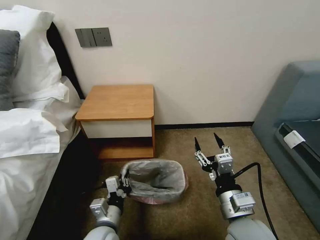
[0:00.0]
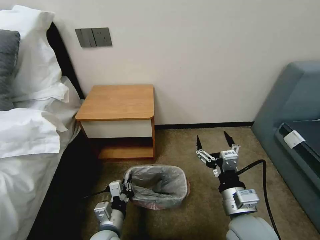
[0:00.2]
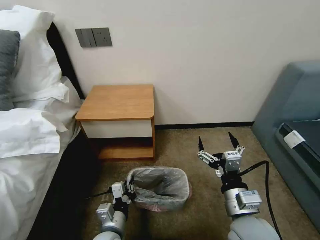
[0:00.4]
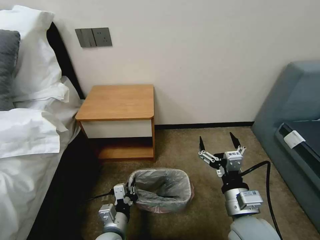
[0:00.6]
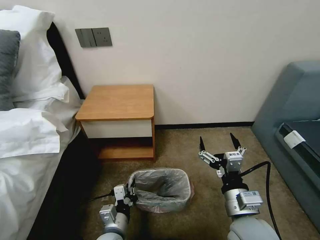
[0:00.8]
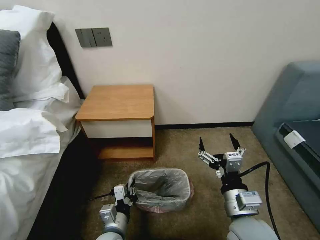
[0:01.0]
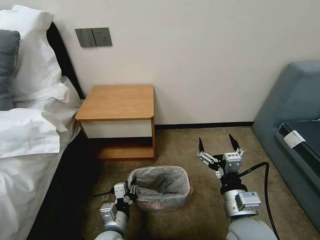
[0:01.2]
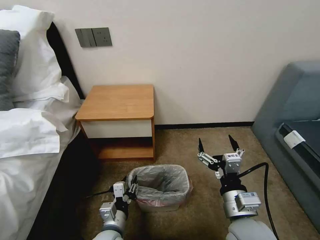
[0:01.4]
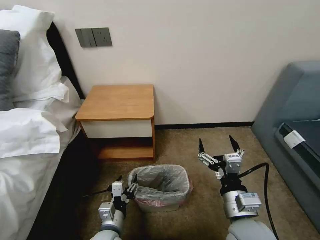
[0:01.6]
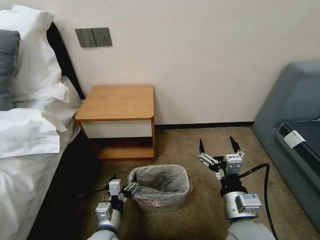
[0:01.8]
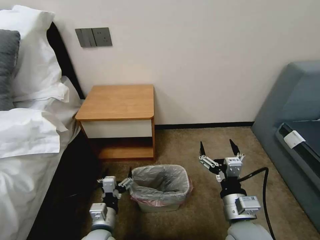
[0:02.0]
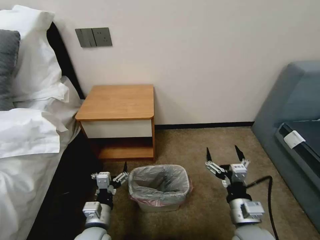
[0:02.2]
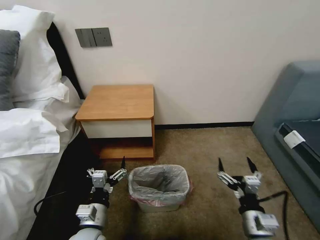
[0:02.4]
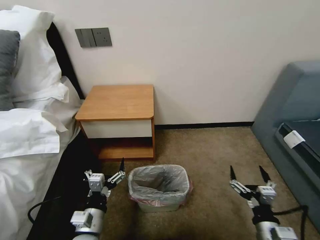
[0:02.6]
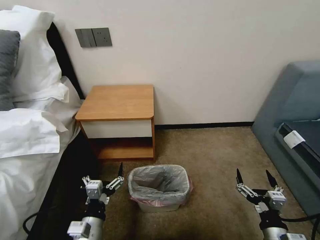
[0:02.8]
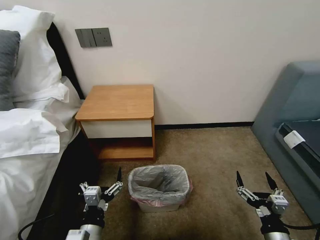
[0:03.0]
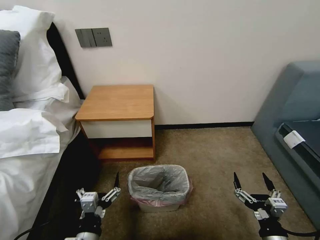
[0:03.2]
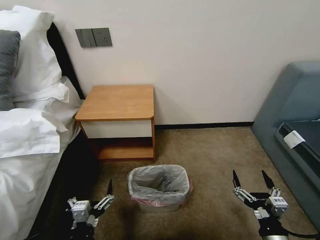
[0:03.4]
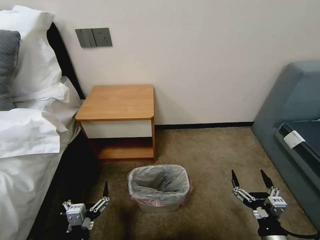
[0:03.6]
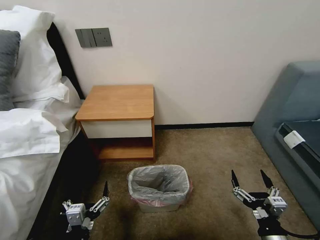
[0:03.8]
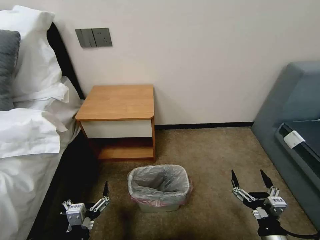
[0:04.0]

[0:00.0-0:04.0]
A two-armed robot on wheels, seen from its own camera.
Task of the whole recording: Pick up the garbage bag from the table and place it over the trash can.
0:00.0 to 0:01.4: The left gripper opens up.
0:01.4 to 0:02.6: The right gripper heads to the right, downward and backward, covering approximately 15 cm. The left gripper shifts some 5 cm to the left, and opens.
0:02.6 to 0:04.0: The left gripper shifts about 10 cm backward.

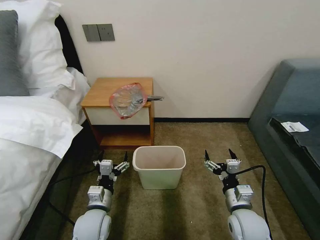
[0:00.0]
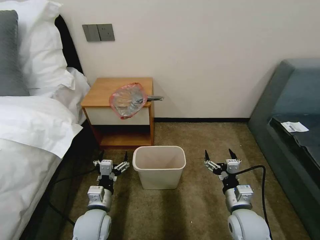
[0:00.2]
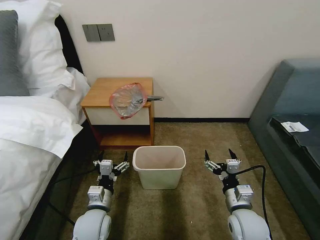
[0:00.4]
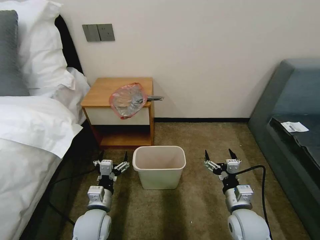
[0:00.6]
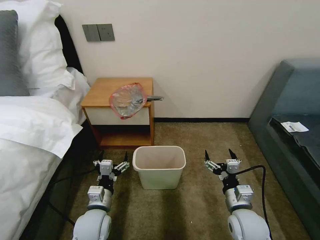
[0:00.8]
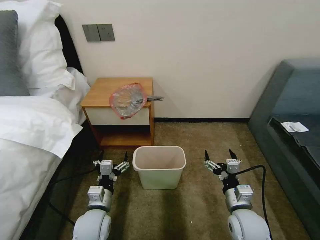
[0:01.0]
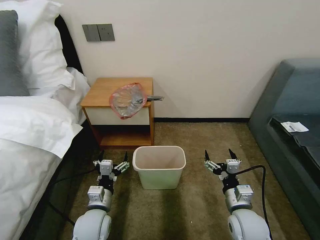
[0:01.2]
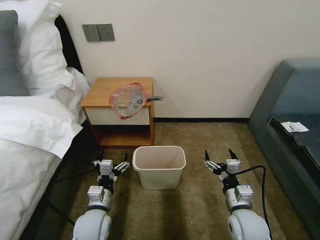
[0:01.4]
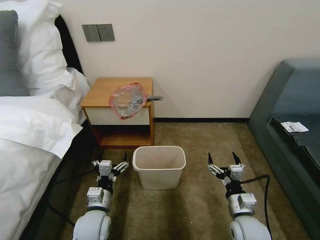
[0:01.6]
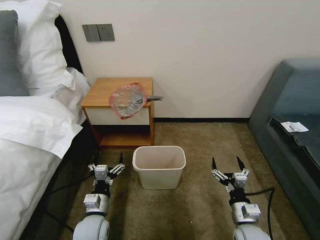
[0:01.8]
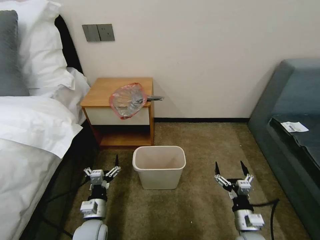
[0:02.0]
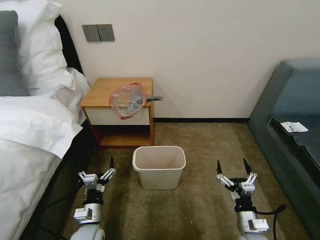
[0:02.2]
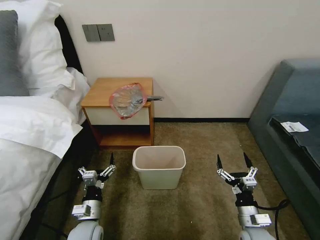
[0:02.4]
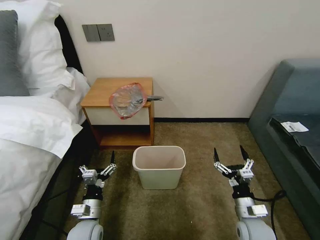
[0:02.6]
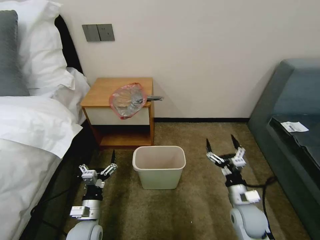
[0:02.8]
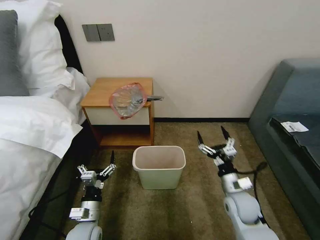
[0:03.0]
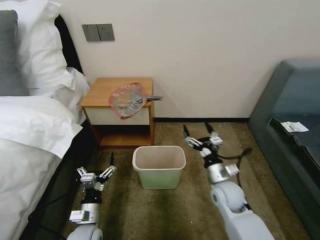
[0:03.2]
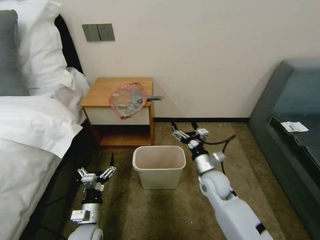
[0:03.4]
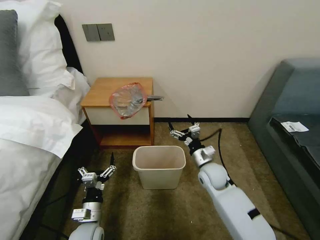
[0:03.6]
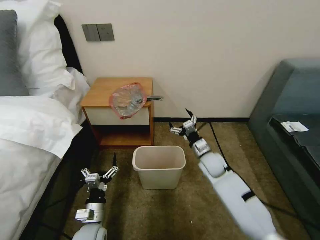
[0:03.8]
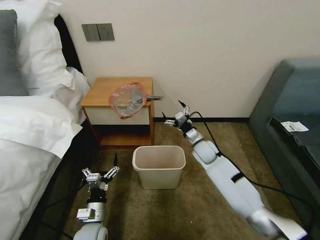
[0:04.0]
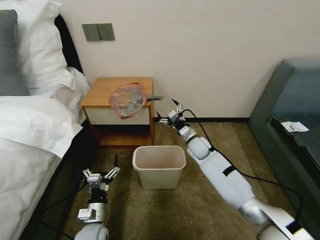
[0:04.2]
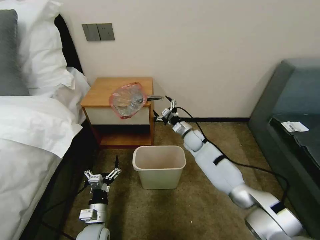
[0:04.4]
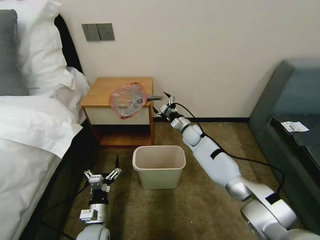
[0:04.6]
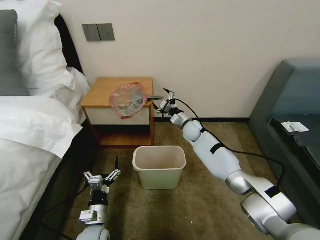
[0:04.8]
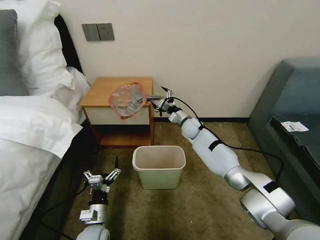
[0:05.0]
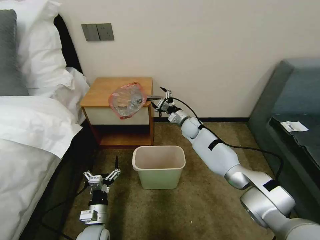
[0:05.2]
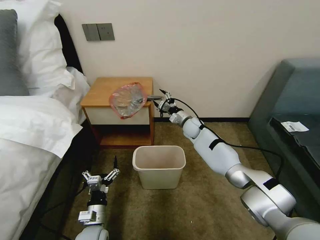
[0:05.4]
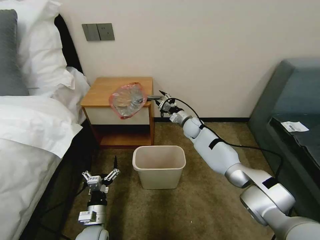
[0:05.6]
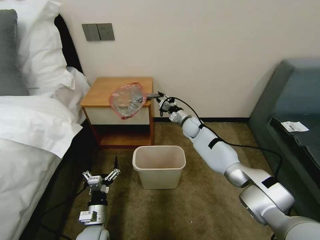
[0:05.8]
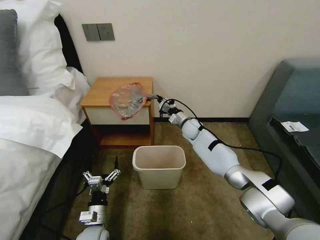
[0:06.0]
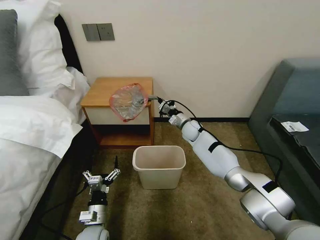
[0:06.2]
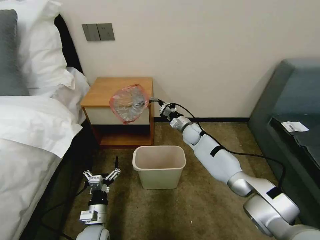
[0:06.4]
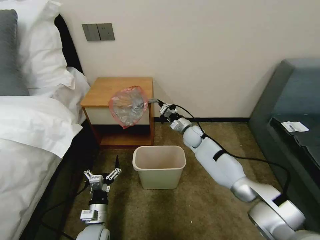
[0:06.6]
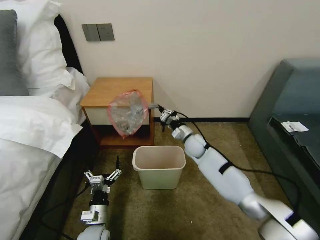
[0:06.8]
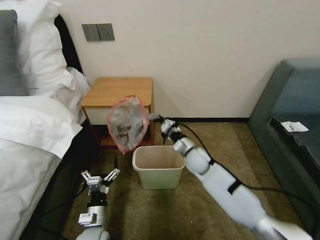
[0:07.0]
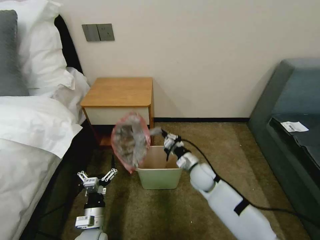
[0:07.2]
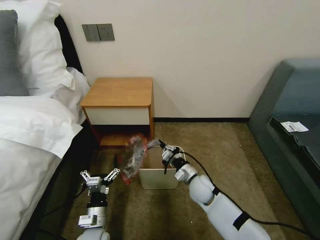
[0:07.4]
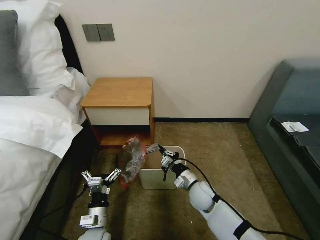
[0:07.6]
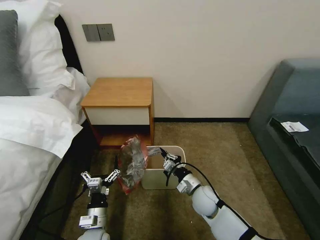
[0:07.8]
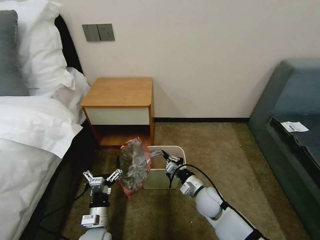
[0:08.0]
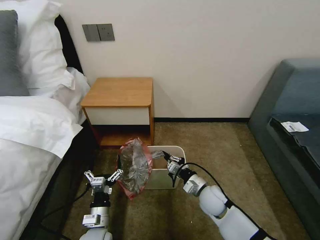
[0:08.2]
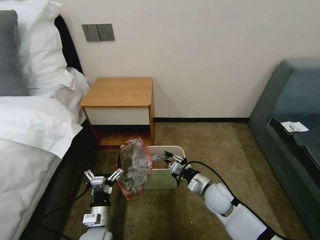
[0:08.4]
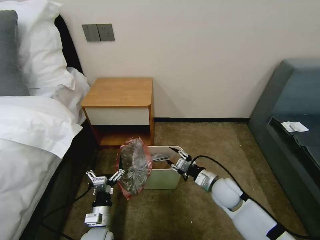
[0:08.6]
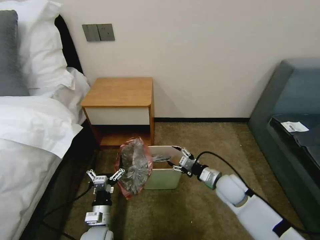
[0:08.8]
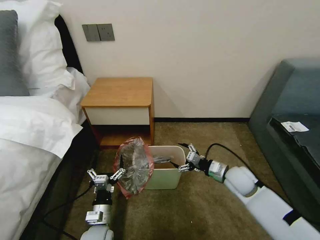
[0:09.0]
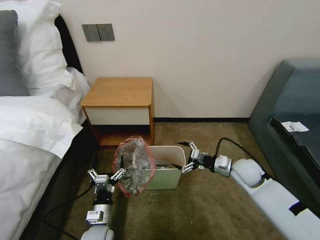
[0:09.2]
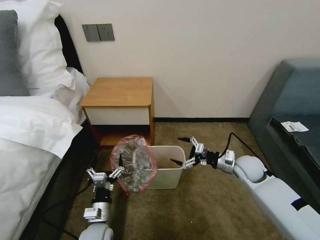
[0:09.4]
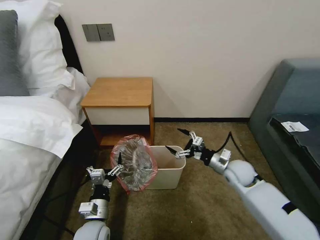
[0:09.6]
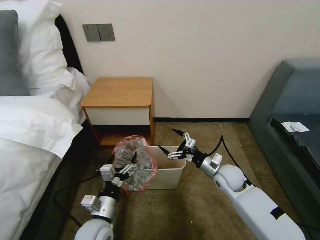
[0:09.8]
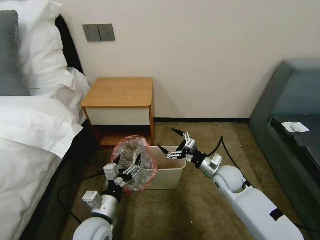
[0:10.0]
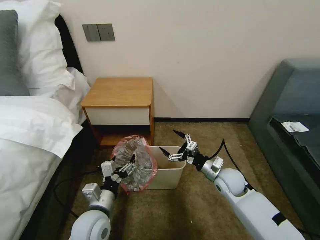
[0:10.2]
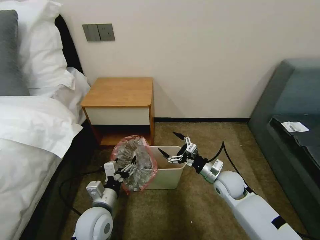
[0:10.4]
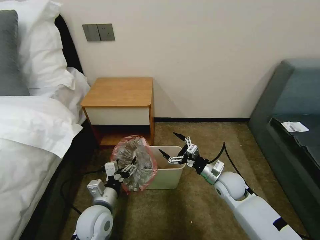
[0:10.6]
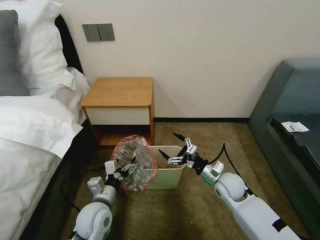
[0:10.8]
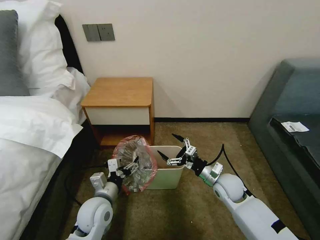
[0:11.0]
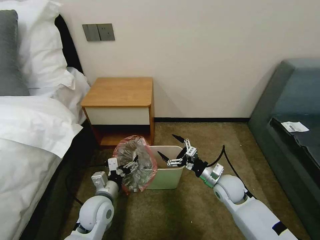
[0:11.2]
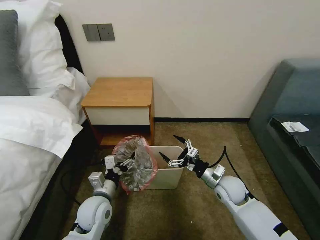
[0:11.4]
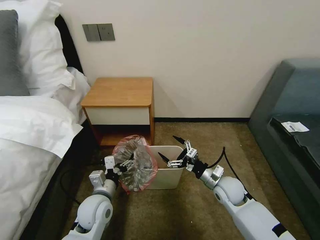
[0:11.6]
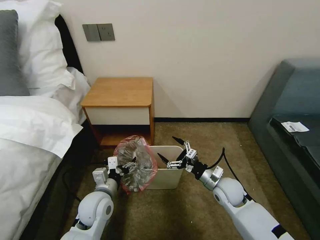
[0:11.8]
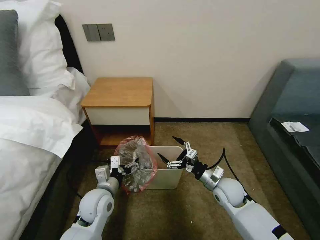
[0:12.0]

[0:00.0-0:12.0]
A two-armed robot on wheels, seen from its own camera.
Task of the whole recording: Pick up the garbage bag from the table and place it over the trash can.
0:01.6 to 0:03.0: The right gripper moves forward, approximately 5 cm. The left gripper moves approximately 5 cm.
0:03.0 to 0:04.4: The right gripper travels forward and to the left by approximately 30 cm.
0:04.4 to 0:06.0: The right gripper shifts by some 5 cm, and closes up.
0:06.0 to 0:07.6: The right gripper goes approximately 25 cm backward.
0:07.6 to 0:09.0: The right gripper moves to the right and upward, about 15 cm, and opens its fingers.
0:09.0 to 0:10.4: The left gripper is displaced upward by roughly 10 cm.
0:10.4 to 0:12.0: The left gripper heads forward, covering about 5 cm.

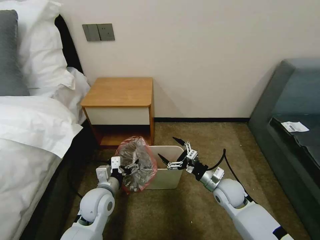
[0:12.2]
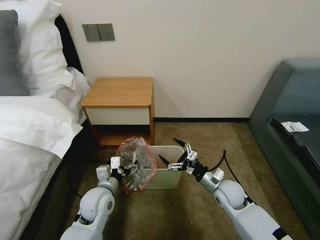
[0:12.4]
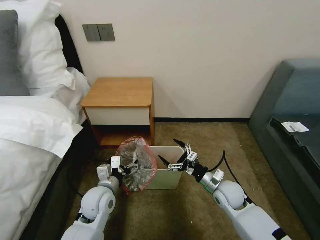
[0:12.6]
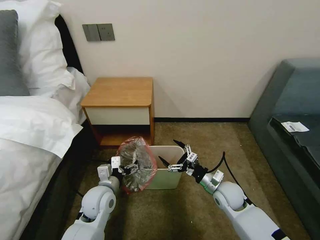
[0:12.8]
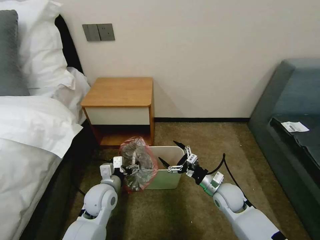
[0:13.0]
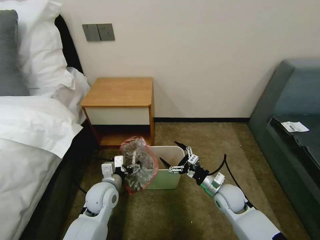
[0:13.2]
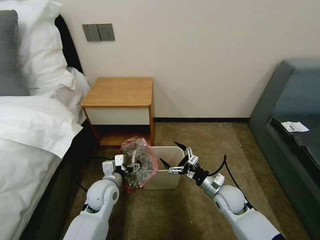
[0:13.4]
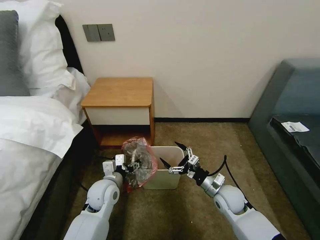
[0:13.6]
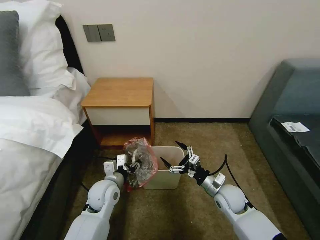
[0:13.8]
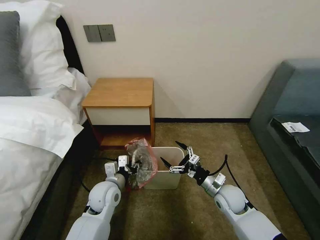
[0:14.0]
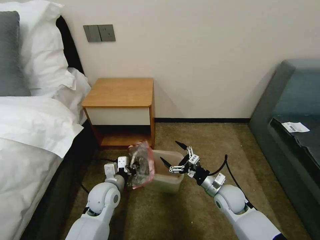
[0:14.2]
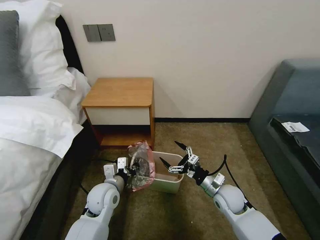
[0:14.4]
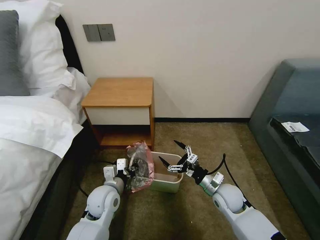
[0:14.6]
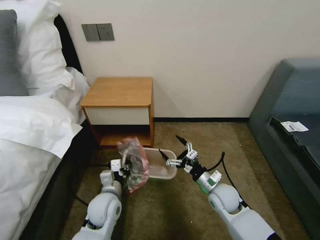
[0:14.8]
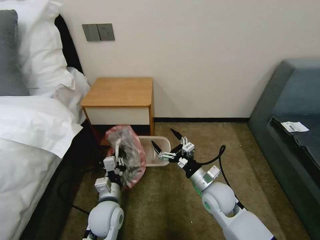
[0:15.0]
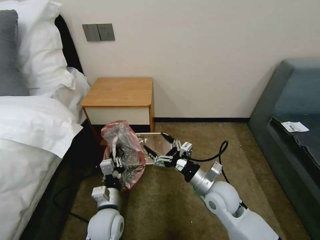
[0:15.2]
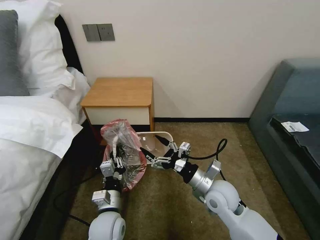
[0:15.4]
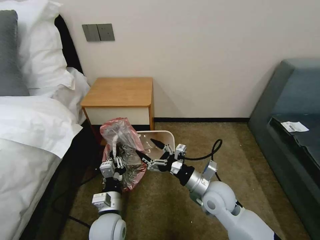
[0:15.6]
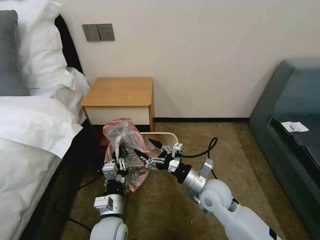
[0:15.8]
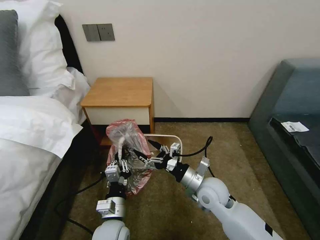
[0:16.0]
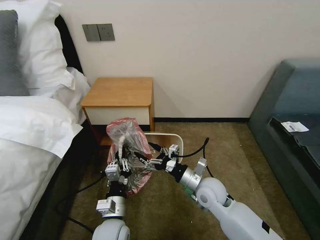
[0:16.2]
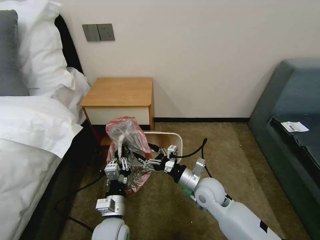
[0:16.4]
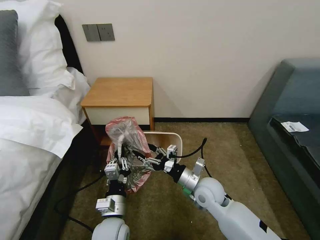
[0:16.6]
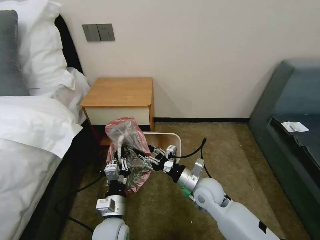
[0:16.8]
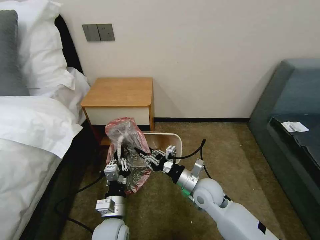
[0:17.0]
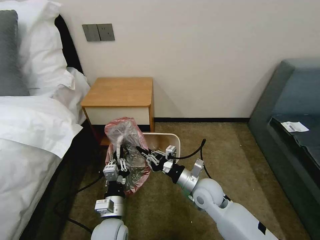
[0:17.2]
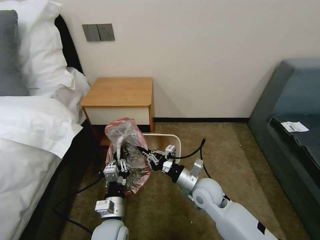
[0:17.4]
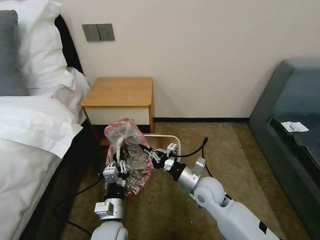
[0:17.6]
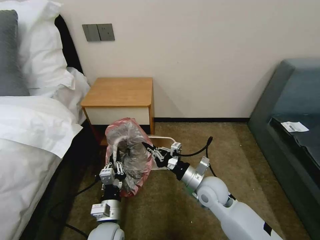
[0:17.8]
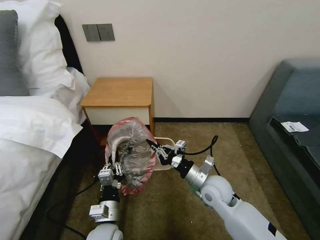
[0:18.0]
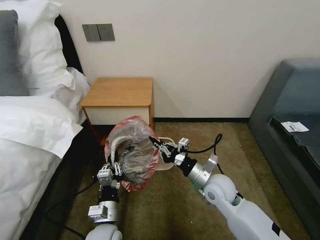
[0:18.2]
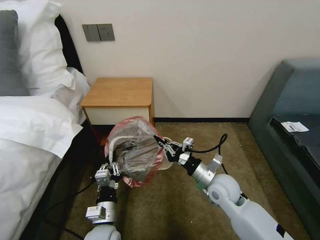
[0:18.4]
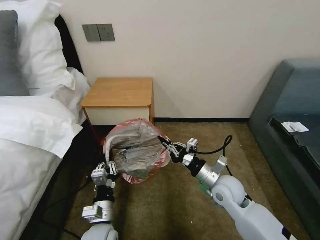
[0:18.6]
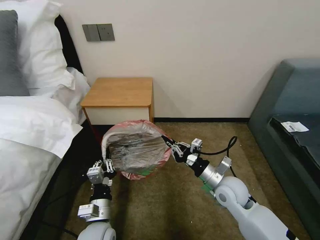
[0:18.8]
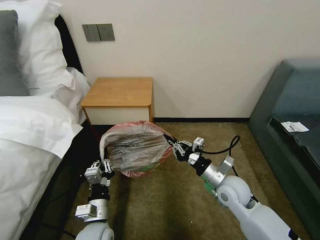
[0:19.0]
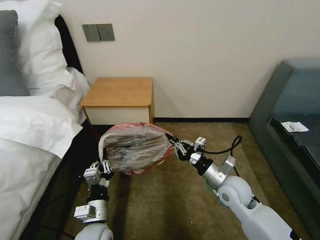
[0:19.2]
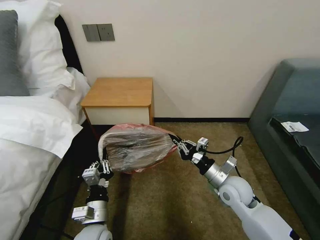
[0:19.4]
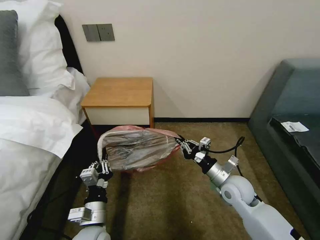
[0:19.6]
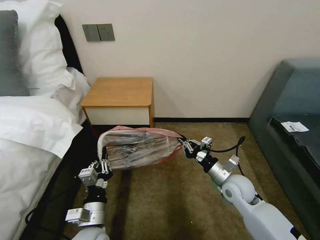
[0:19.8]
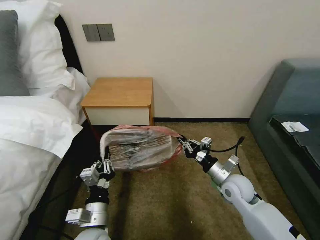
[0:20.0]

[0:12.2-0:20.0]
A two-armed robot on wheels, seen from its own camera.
Task of the whole recording: Pick up the garbage bag from the table and place it over the trash can.
0:12.2 to 0:13.8: The left gripper closes.
0:13.8 to 0:15.4: The left gripper travels backward by about 10 cm, and closes up. Meanwhile the right gripper shifts some 10 cm upward and to the left.
0:15.4 to 0:16.8: The right gripper closes up.
0:16.8 to 0:18.4: The right gripper closes its fingers.
0:18.4 to 0:20.0: The left gripper changes place by some 5 cm. Meanwhile the right gripper heads to the right, covering roughly 5 cm.
